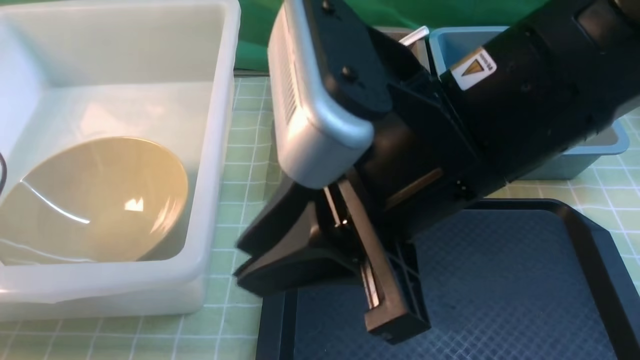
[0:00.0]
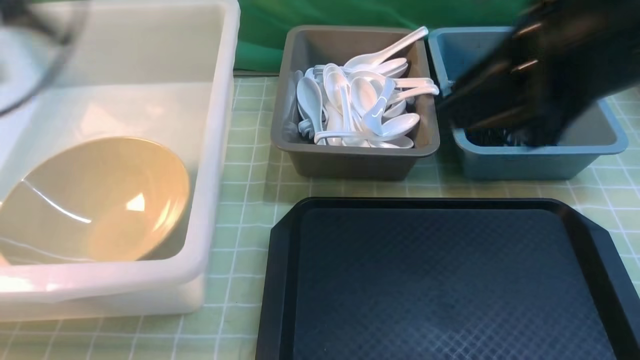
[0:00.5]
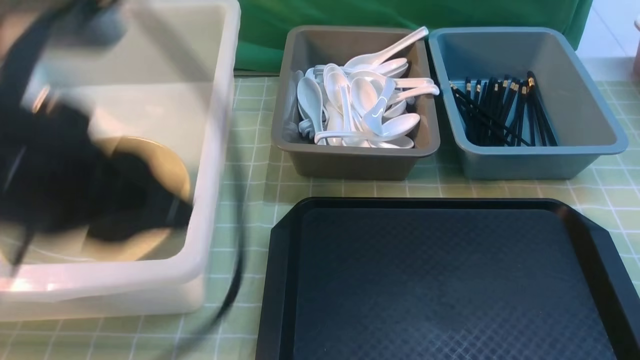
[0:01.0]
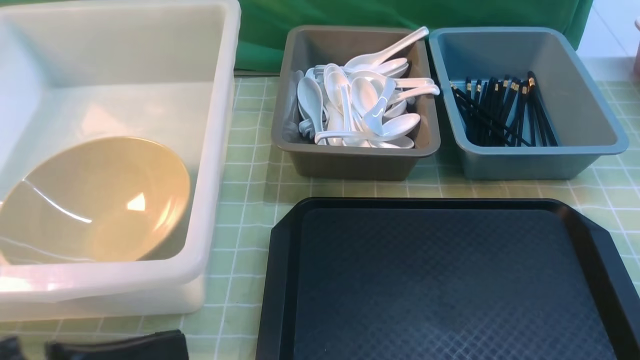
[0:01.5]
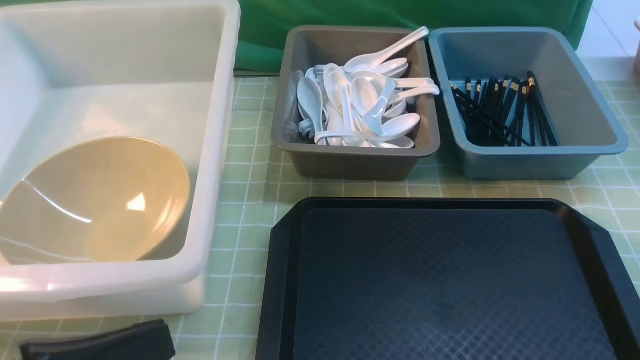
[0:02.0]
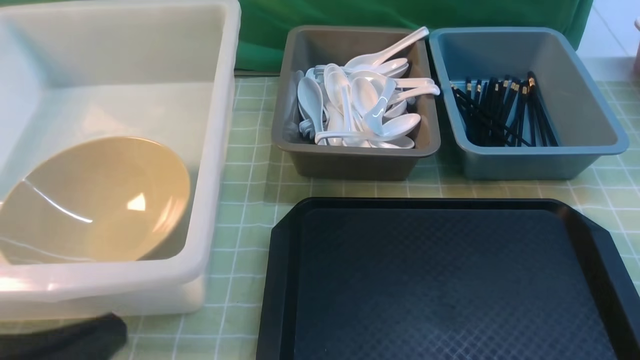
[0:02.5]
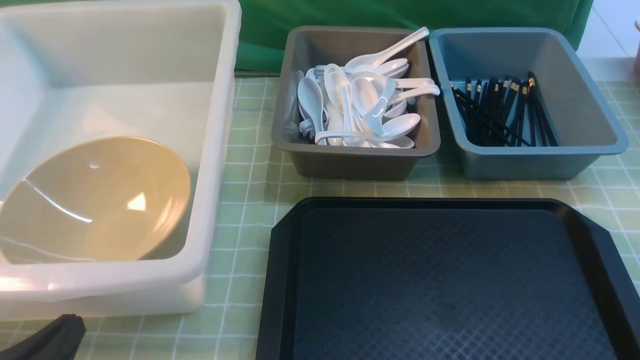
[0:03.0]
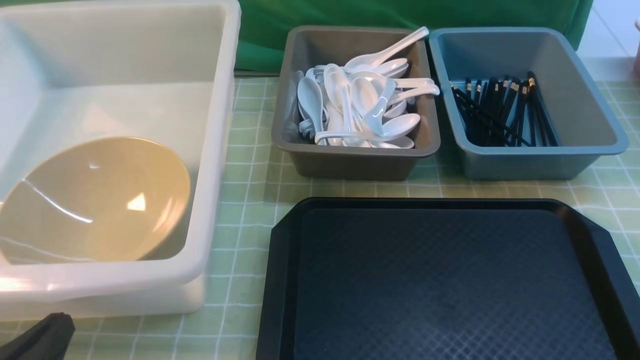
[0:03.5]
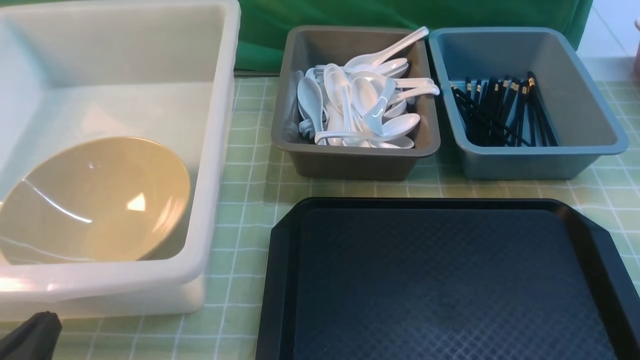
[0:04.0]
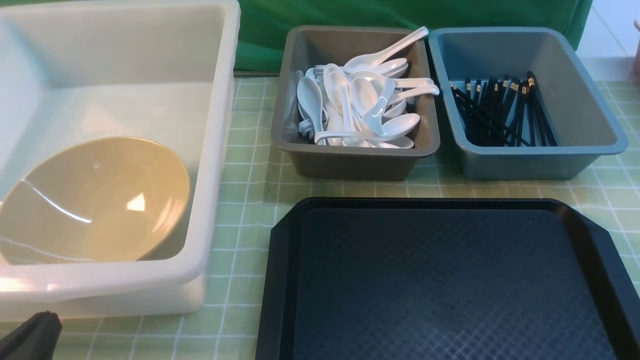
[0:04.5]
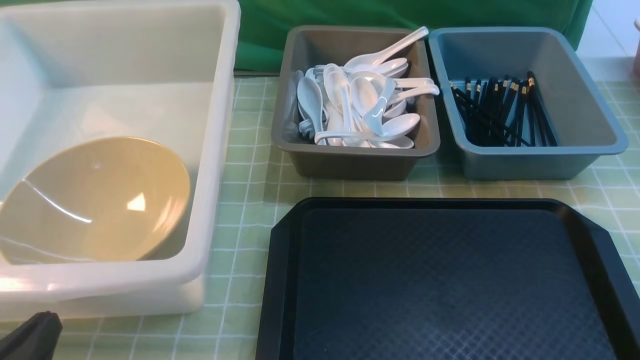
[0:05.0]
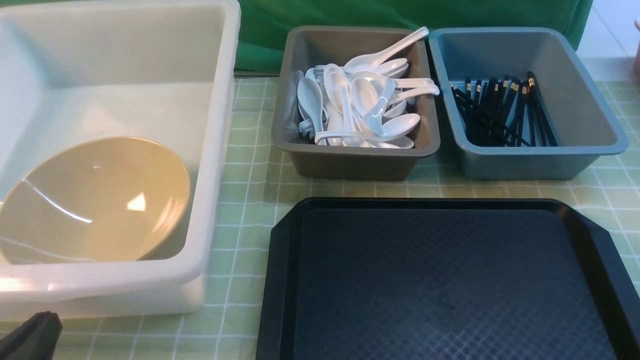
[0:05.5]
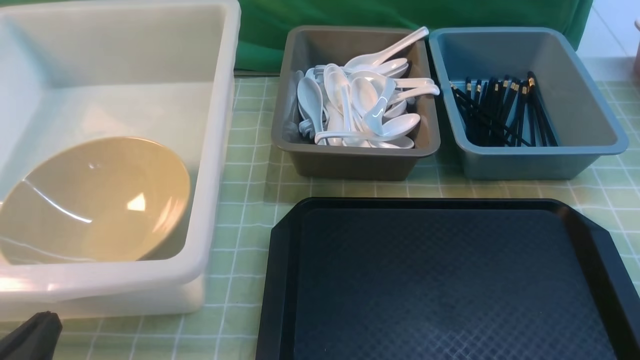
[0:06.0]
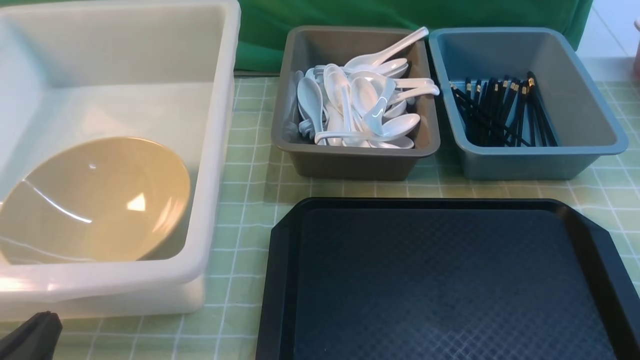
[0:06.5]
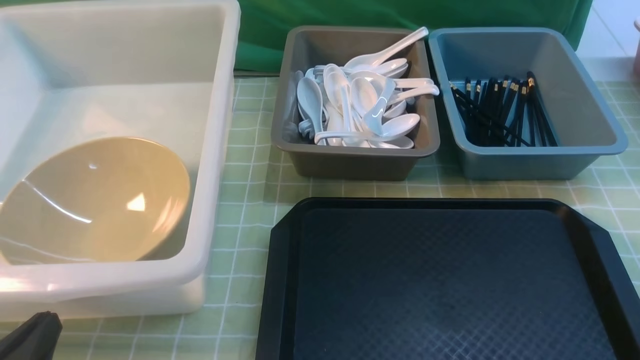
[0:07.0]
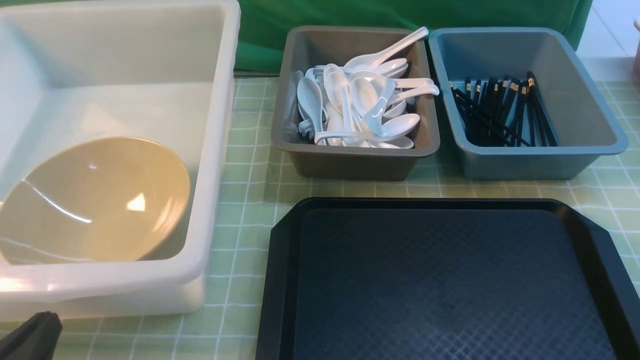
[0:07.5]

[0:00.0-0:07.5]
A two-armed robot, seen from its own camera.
Task of the whole recording: on green table put chopsticks spoon bowls plates into blue grey white boxes.
0:00.0 to 0:02.0: The right gripper is displaced to the right, backward and downward by some 30 cm, and closes up; the left gripper is displaced to the right and backward by roughly 30 cm, and closes up.
0:02.0 to 0:04.0: The left gripper goes roughly 15 cm downward and to the left.
0:05.5 to 0:07.5: The two grippers keep their place.
